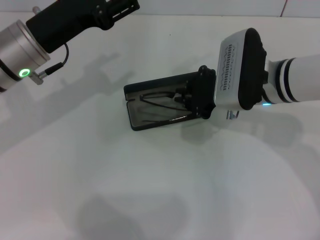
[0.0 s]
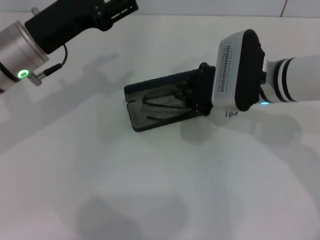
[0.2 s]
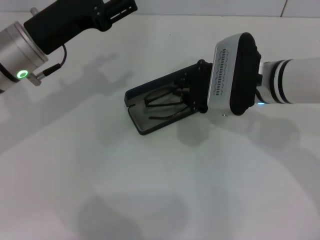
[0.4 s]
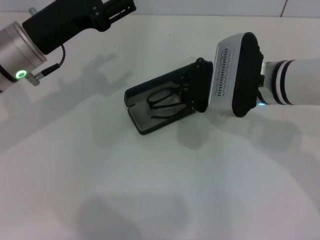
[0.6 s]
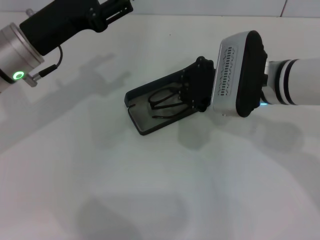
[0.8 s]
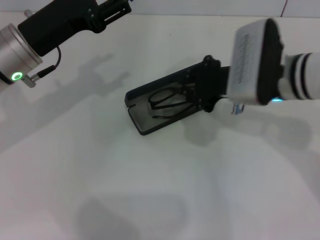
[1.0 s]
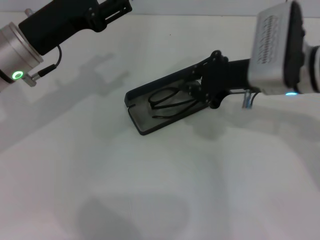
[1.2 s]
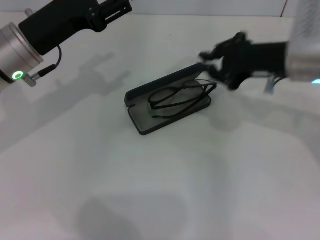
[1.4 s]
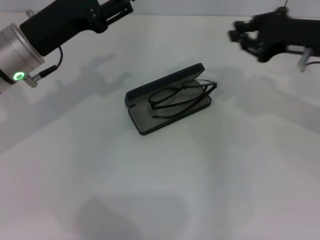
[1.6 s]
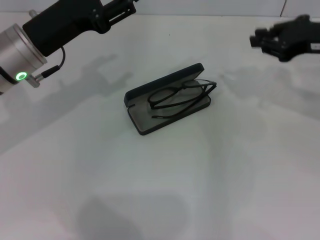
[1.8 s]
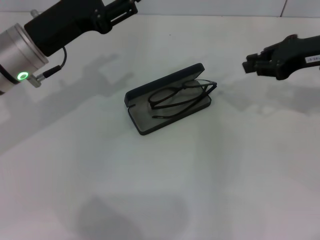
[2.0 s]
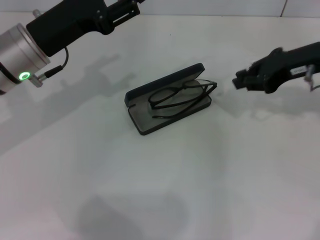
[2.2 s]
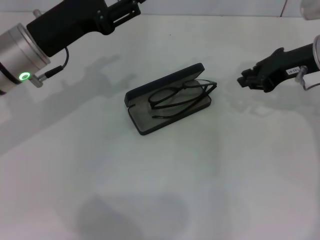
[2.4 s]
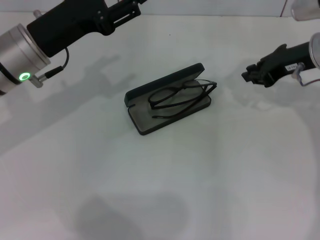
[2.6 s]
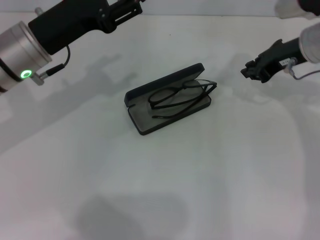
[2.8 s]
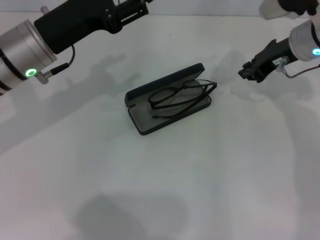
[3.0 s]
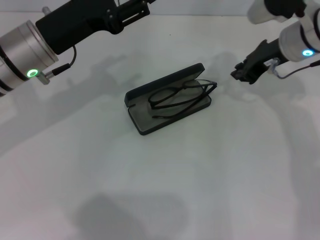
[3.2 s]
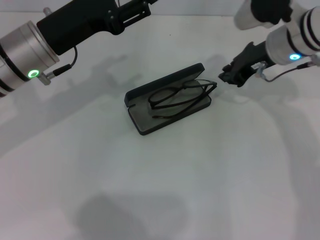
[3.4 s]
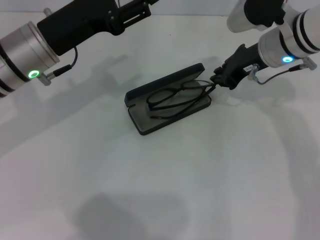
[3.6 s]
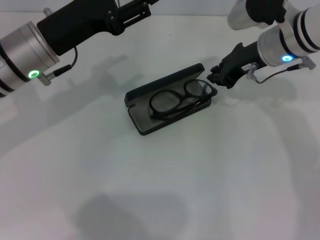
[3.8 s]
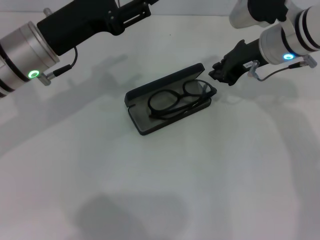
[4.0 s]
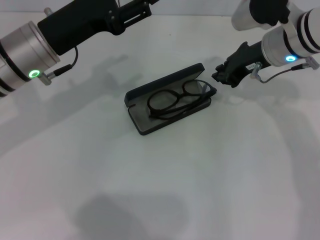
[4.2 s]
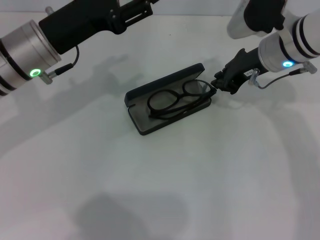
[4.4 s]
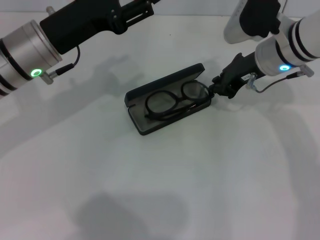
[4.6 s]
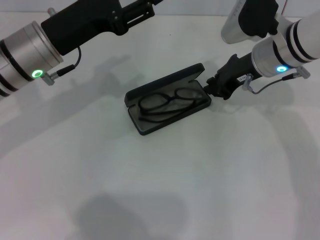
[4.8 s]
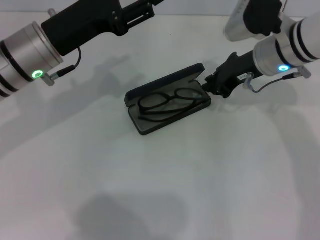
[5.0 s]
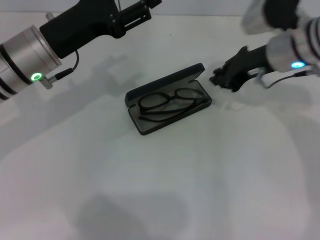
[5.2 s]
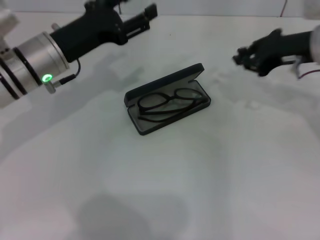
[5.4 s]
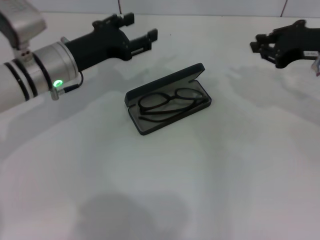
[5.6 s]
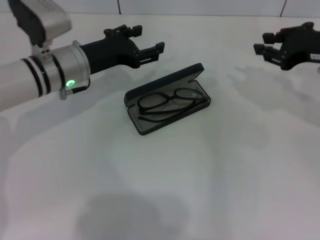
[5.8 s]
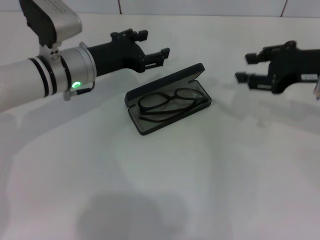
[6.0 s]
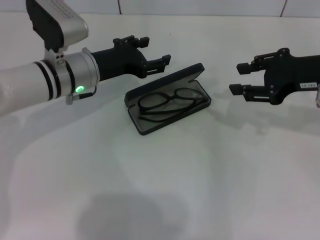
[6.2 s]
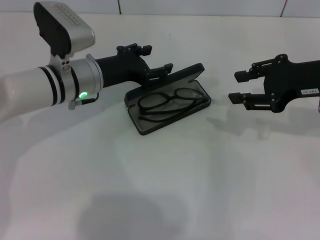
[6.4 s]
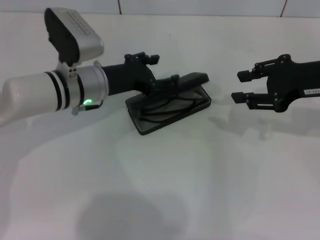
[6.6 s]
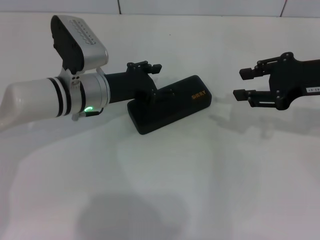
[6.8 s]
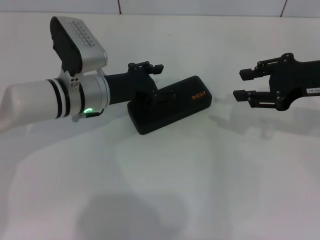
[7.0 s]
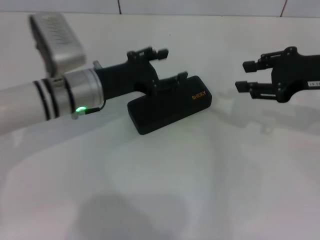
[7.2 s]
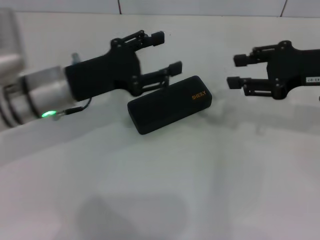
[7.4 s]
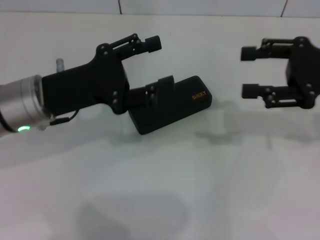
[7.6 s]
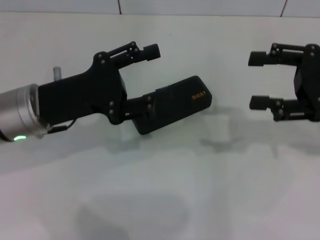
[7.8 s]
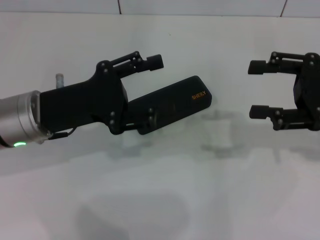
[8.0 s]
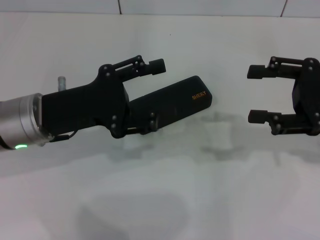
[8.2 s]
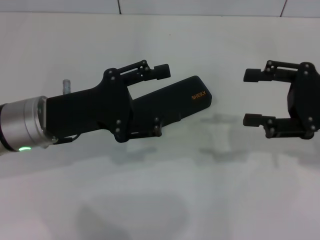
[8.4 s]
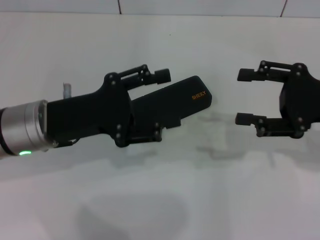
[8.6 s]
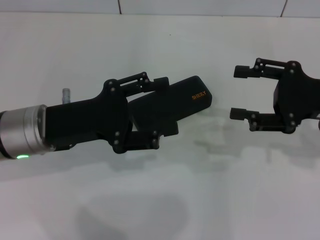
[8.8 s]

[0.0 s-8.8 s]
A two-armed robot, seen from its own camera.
Step, 0.0 to 4.6 s: Put the glasses into the case with your right hand.
Step, 5.0 to 6.6 s: Close the glasses case with your left hand.
0.0 to 1.4 s: The right gripper shifts roughly 10 cm to the right and upward.
1.4 to 3.0 s: The right gripper shifts approximately 10 cm forward.
3.0 to 4.4 s: The grippers stay close to where they were, moving slightly.
4.4 to 5.8 s: The left gripper travels downward by roughly 5 cm. The right gripper travels to the right and backward by roughly 10 cm.
5.8 to 7.4 s: The left gripper moves backward, some 5 cm, while the right gripper opens up.
7.4 to 8.8 s: The left gripper shifts about 5 cm backward, while the right gripper changes place by approximately 5 cm.
